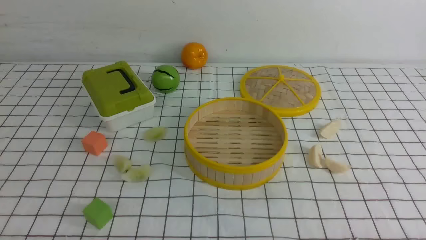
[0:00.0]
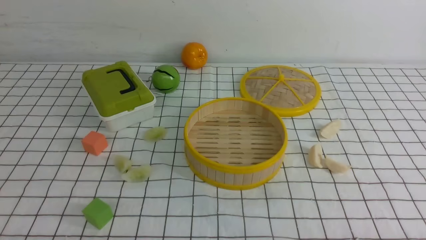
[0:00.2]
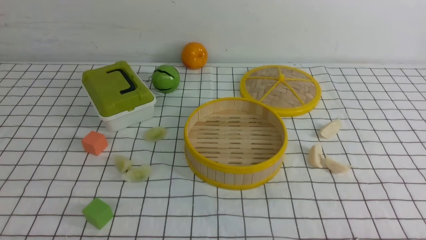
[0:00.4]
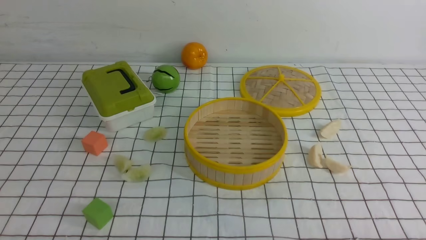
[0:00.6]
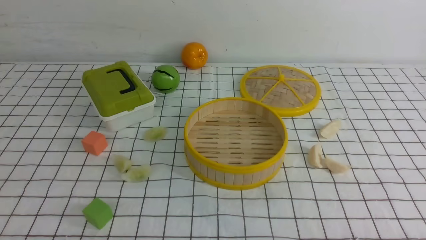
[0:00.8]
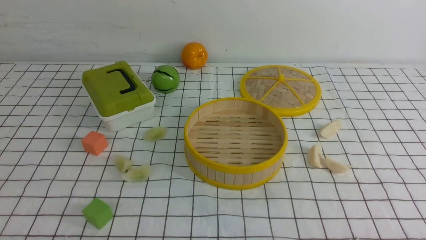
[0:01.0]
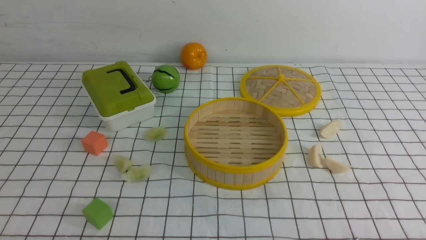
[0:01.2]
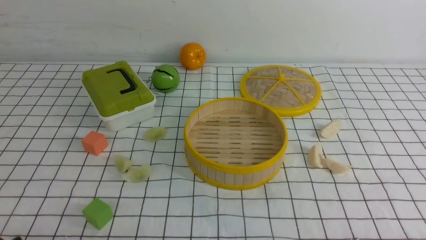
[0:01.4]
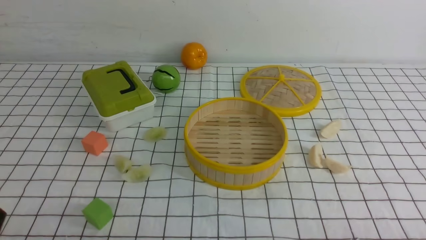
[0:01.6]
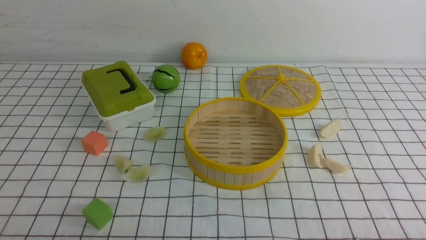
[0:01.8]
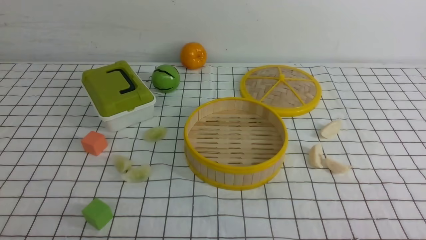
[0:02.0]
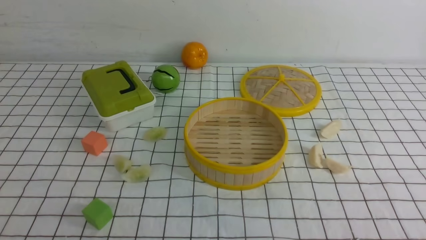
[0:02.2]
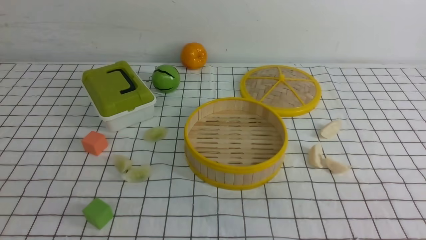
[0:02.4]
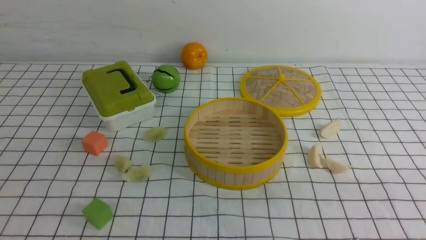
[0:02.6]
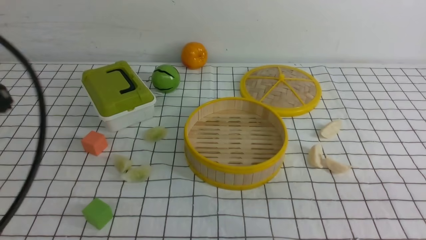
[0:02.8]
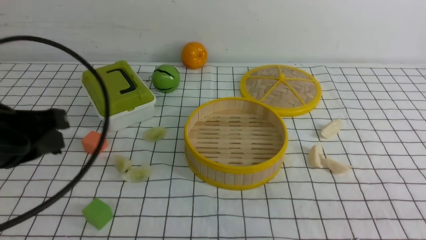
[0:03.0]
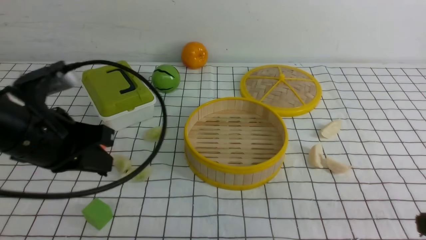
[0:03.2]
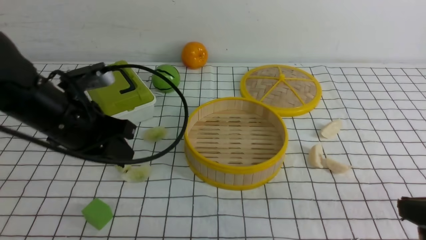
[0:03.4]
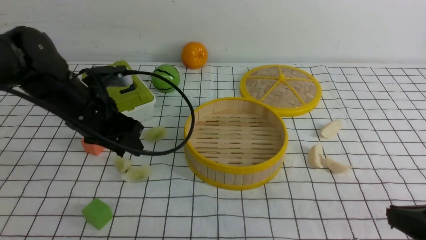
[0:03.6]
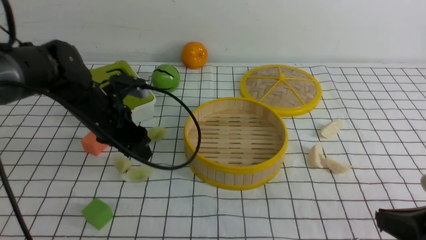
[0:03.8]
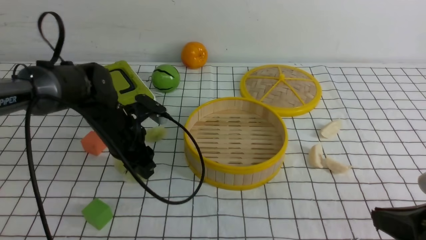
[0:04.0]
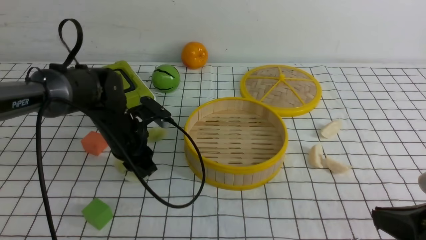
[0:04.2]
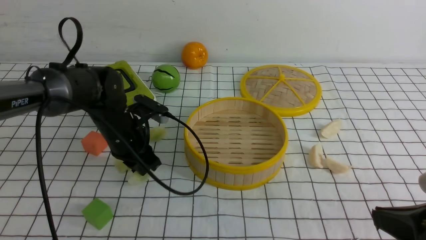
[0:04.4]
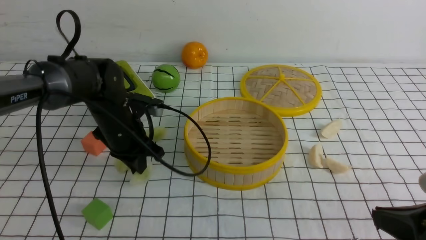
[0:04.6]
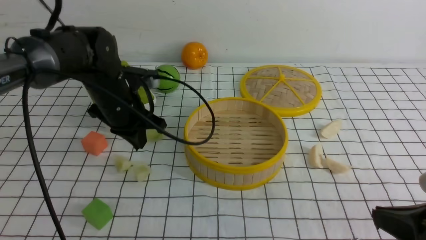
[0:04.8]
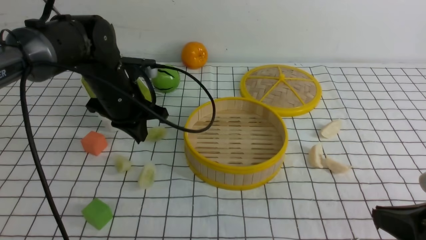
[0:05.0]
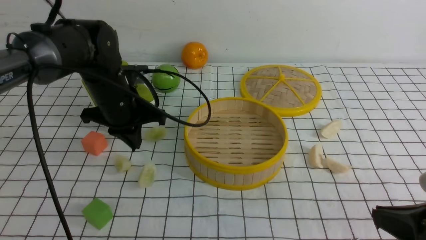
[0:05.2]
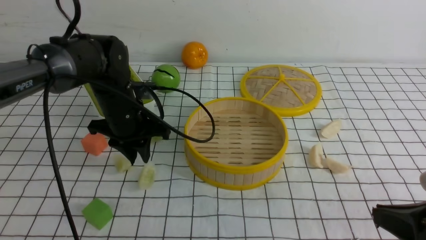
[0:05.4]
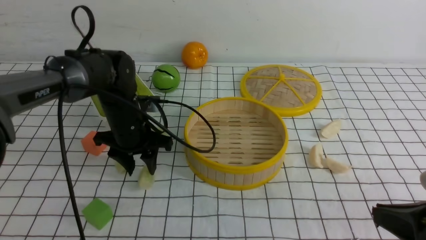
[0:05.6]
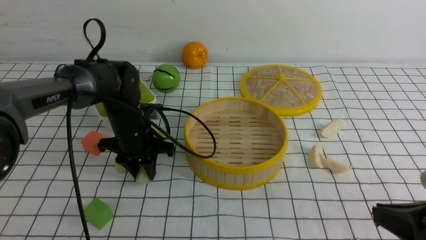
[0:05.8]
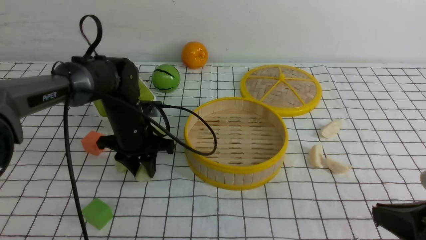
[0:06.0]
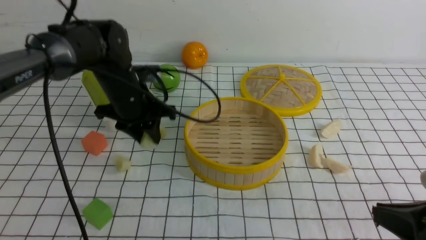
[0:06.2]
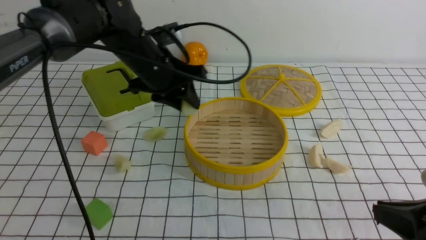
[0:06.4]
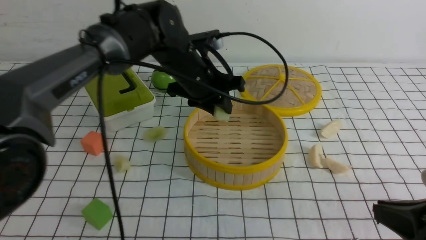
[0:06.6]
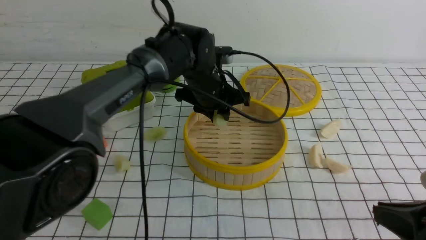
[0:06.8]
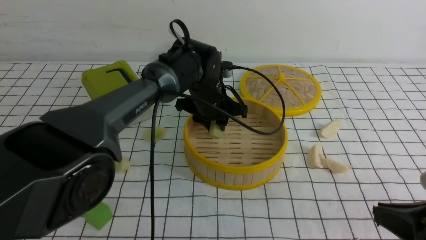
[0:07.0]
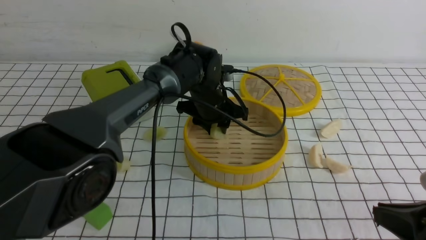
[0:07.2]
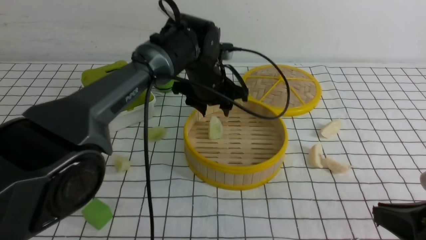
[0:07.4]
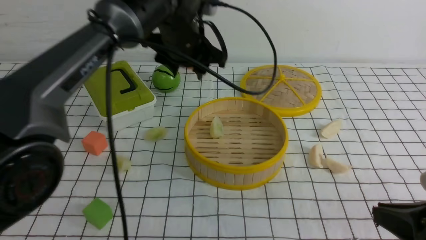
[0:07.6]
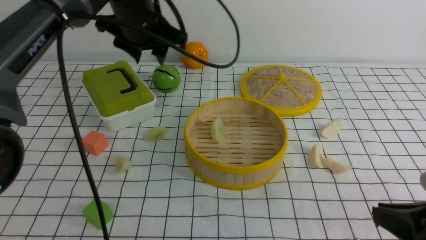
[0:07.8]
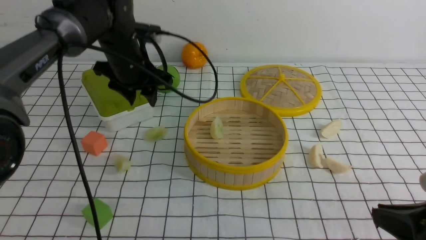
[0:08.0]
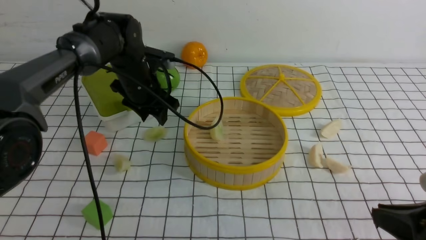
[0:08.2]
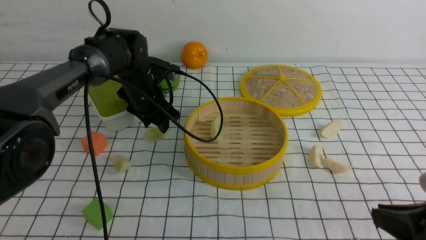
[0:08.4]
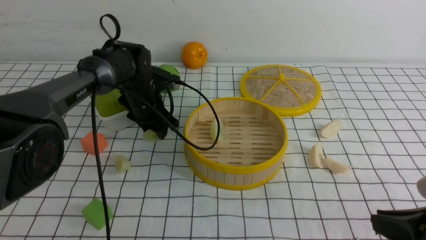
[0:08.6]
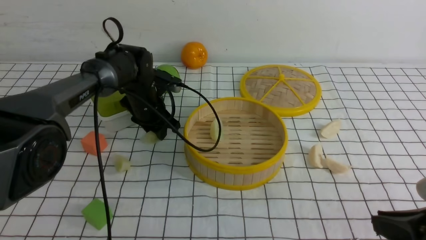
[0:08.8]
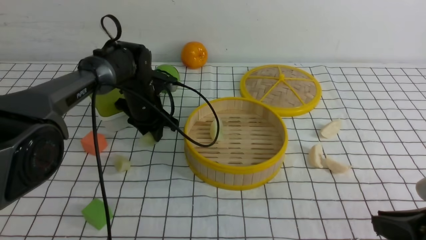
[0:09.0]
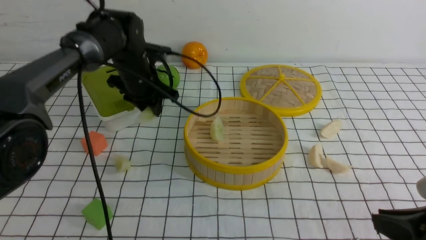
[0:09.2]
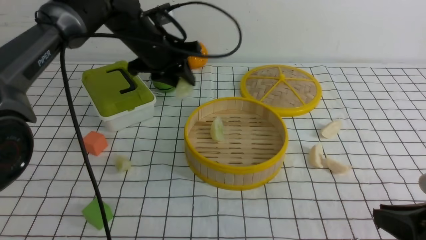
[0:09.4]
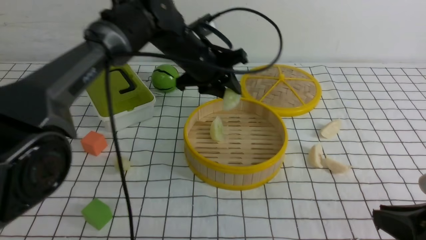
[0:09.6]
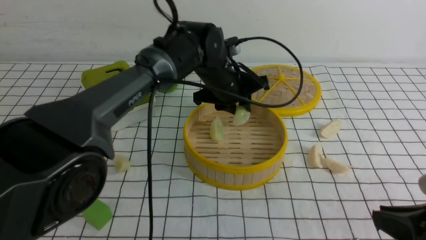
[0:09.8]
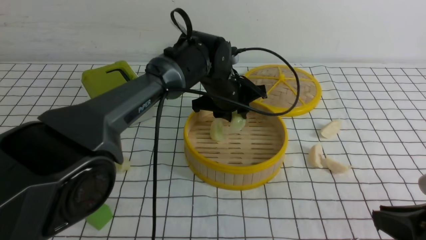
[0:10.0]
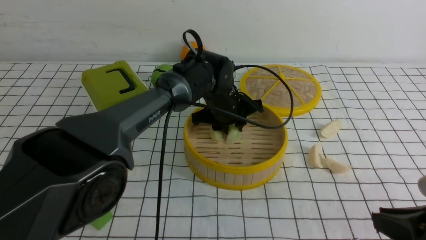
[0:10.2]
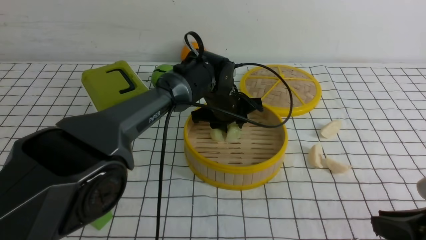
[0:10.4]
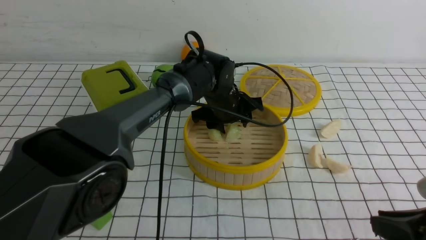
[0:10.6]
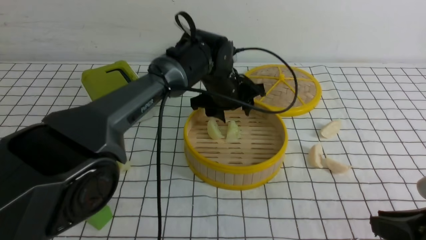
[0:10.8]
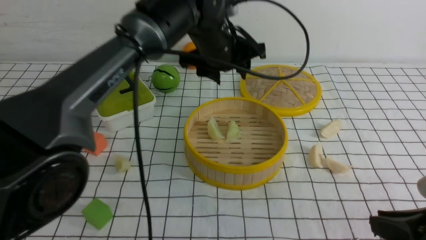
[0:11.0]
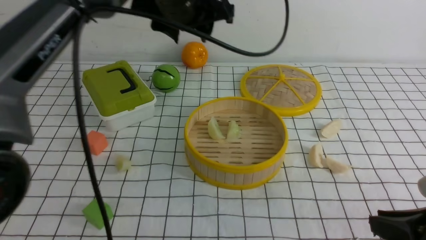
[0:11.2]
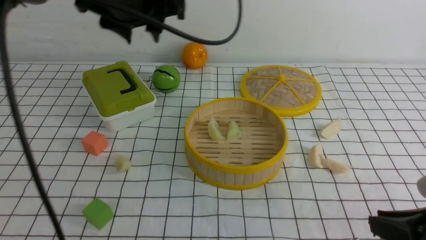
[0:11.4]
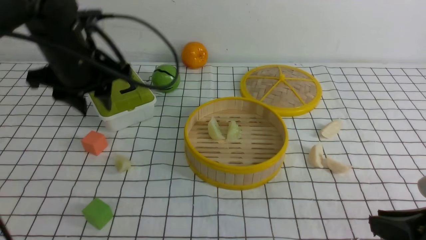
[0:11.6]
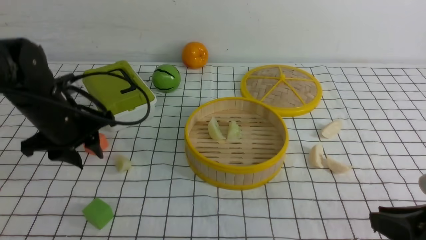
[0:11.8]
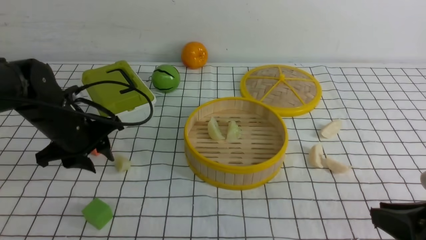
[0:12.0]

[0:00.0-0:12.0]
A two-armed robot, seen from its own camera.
Task of the whole recording: put the dumplings into the steamer on the table with the white tablecloth.
Step, 0:00.0 to 0:06.4: use the left arm to grab a dumpling.
Step, 0:06.6 to 0:07.6: use the left arm to put the dumpling into the steamer.
Step, 0:07.8 to 0:09.0: use the left arm to grab a dumpling.
Step, 0:09.4 to 0:10.6: use the left arm to put the dumpling into the steamer.
0:01.6 to 0:03.0: The left gripper moves forward and upward, roughly 20 cm, and closes its fingers.
0:03.0 to 0:04.4: The left gripper travels forward and downward by roughly 25 cm, and opens, then closes again.
0:06.0 to 0:07.6: The left gripper shifts about 15 cm upward and to the right, and opens up.
0:07.6 to 0:09.0: The left gripper heads downward and to the left, covering some 15 cm, and closes its fingers.
0:09.0 to 0:10.4: The left gripper goes some 15 cm to the right.
0:10.4 to 0:12.0: The left gripper travels to the left by some 25 cm.

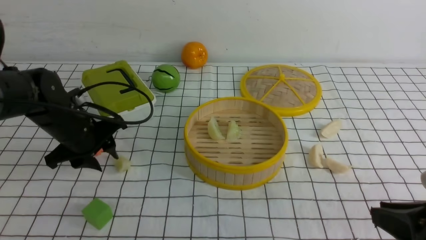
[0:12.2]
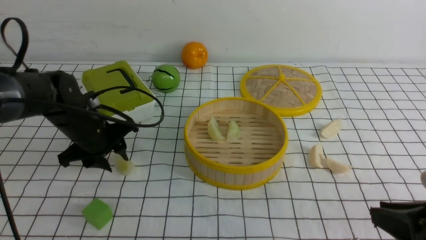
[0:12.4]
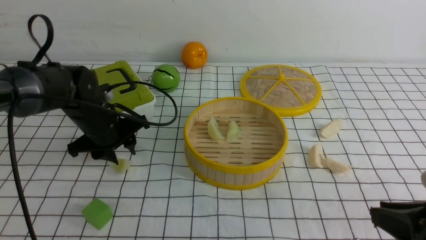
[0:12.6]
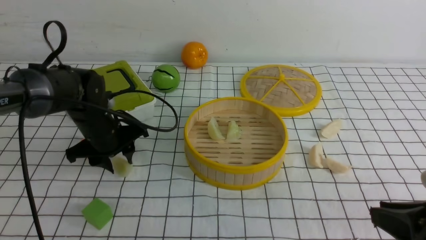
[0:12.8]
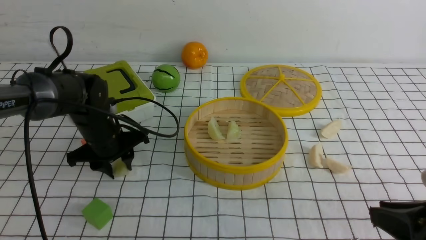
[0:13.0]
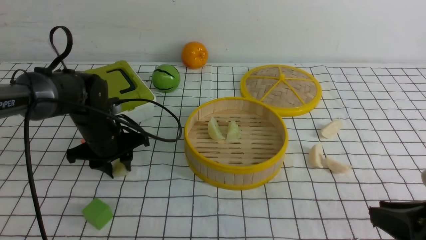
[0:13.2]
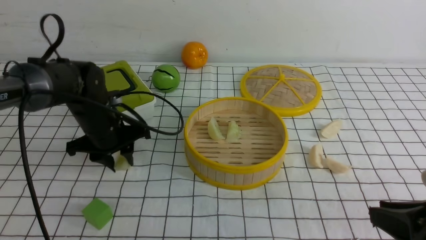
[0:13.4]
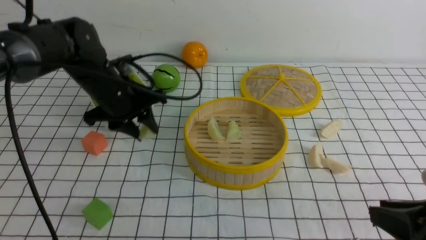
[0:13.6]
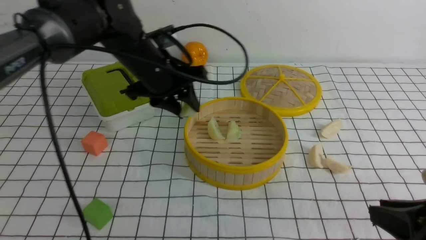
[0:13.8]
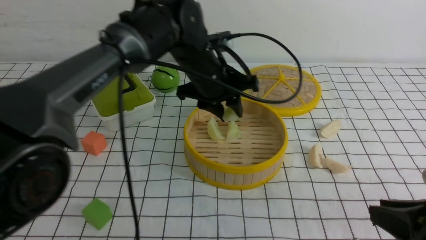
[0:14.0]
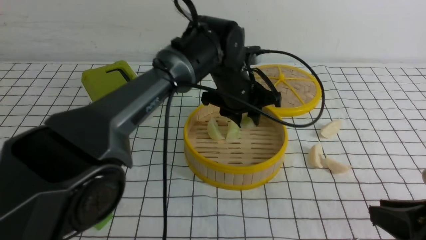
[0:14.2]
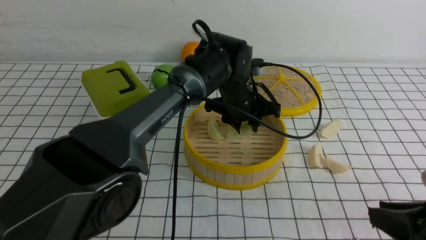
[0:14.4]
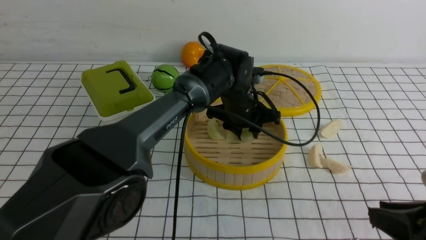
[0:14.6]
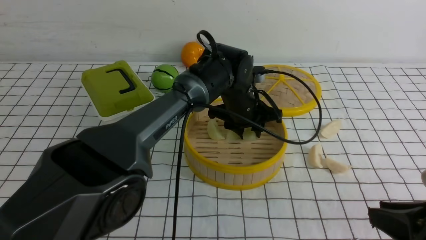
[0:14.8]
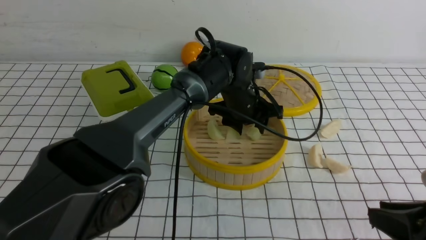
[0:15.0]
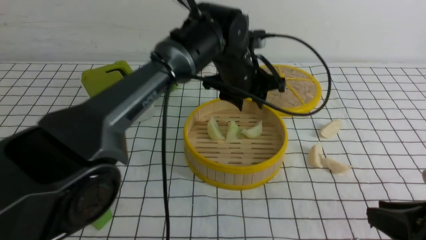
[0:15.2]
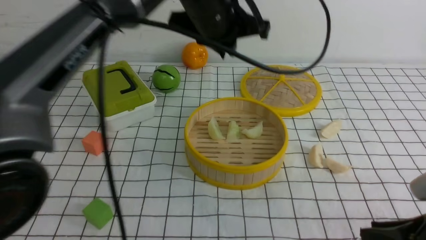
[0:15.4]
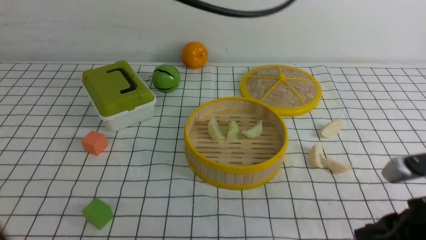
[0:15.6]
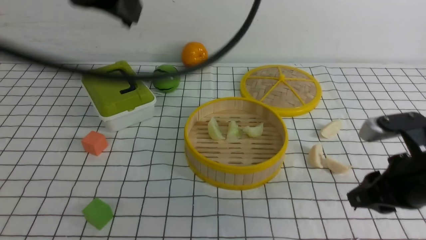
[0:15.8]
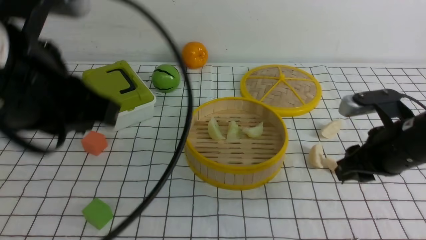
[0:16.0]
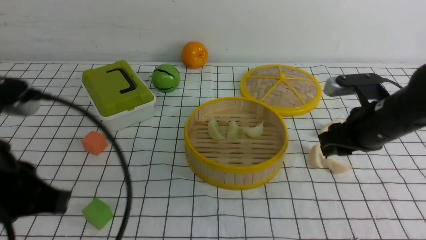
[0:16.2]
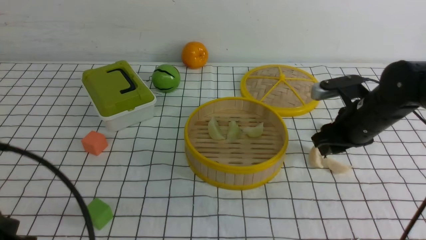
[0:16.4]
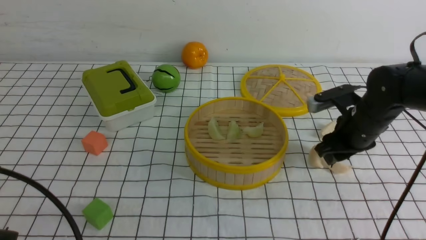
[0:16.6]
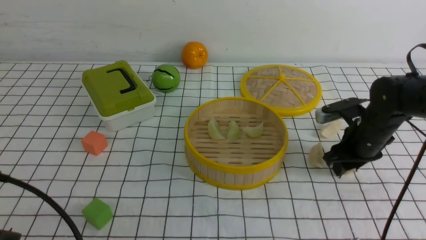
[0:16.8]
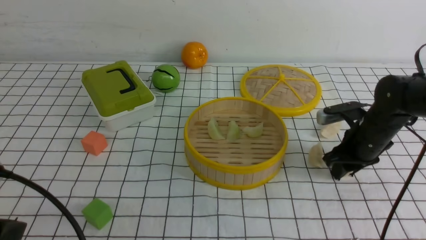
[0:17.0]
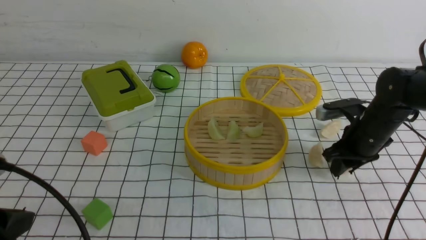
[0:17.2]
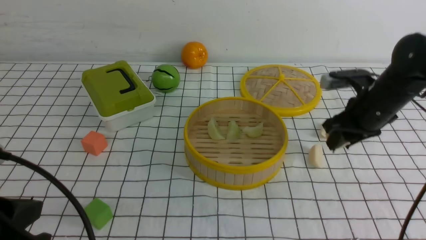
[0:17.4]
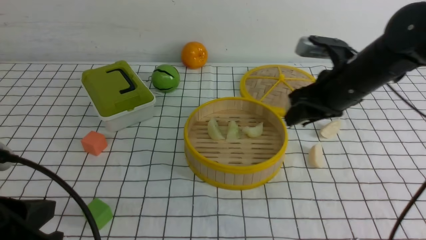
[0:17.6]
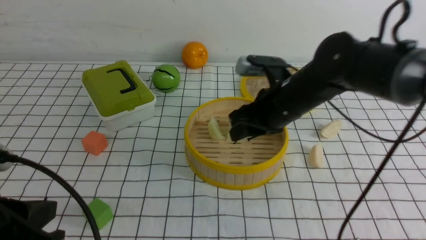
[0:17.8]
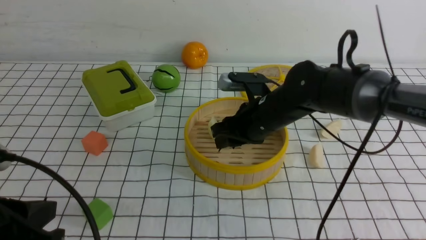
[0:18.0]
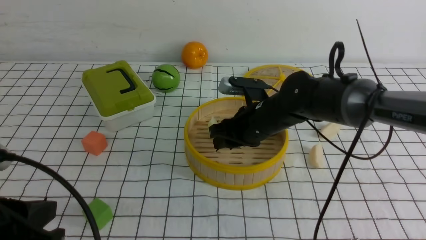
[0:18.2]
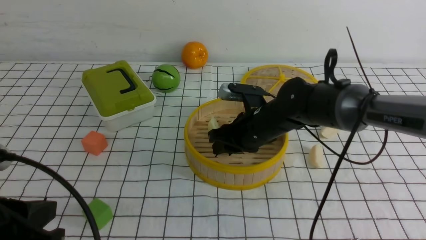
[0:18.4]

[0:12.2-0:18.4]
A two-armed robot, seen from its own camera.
Task of the whole recording: put the dumplings into the steamer on the table with the white tablecloth.
Step, 0:12.2 to 0:13.6: use the left arm to grab a dumpling.
Step, 0:13.8 to 0:15.0: use the left arm to put the dumpling into the steamer.
Step, 0:15.2 to 0:17.4: use the right arm to grab a dumpling.
0:12.2 to 0:13.8: The left gripper heads to the right and upward, covering roughly 15 cm.
0:13.8 to 0:15.4: The left gripper travels upward and to the right by about 15 cm, and closes up.
0:15.4 to 0:16.8: The left gripper shifts roughly 35 cm backward, to the left and downward; the right gripper goes roughly 25 cm forward.
0:16.8 to 0:18.4: The right gripper heads to the left, covering roughly 20 cm.
